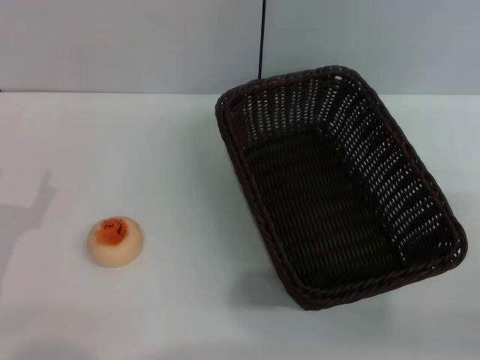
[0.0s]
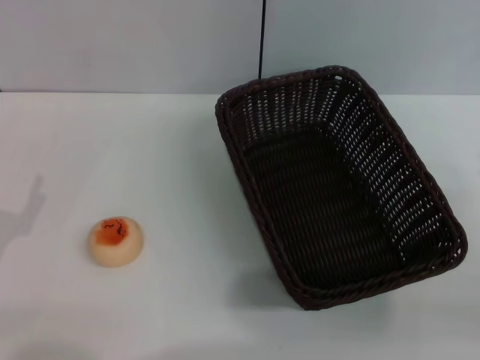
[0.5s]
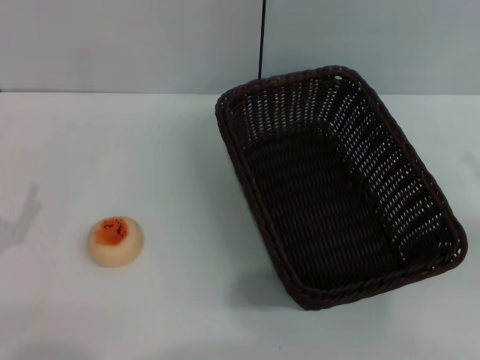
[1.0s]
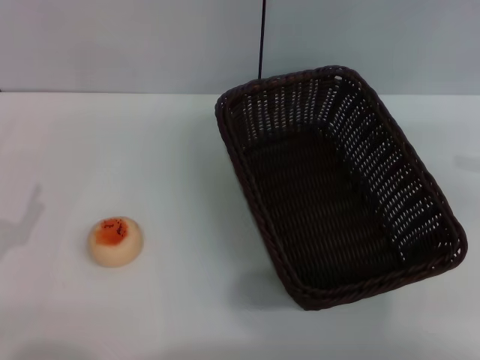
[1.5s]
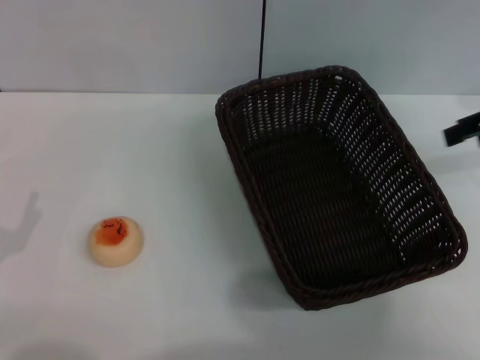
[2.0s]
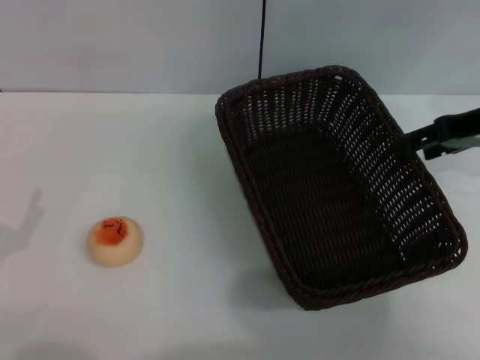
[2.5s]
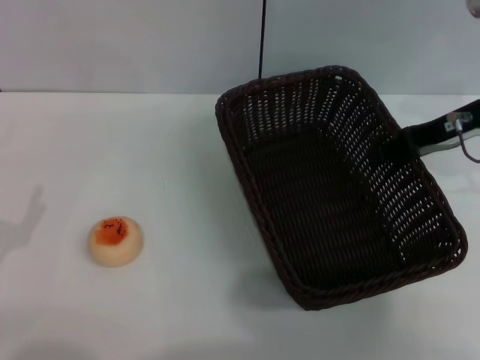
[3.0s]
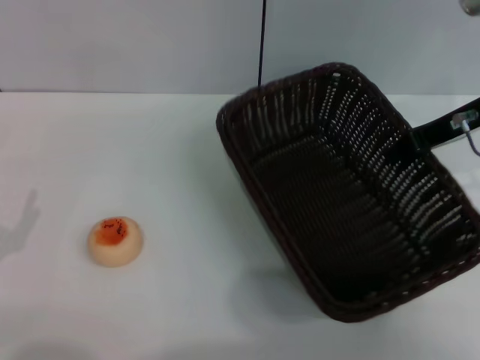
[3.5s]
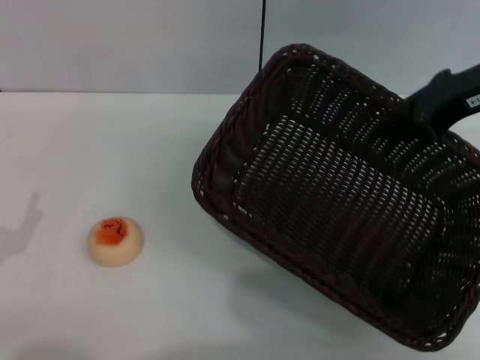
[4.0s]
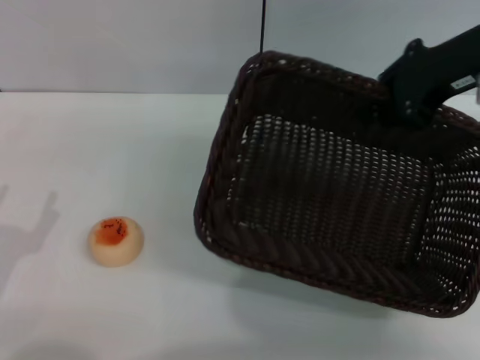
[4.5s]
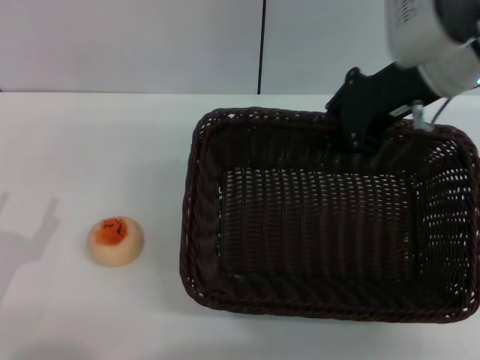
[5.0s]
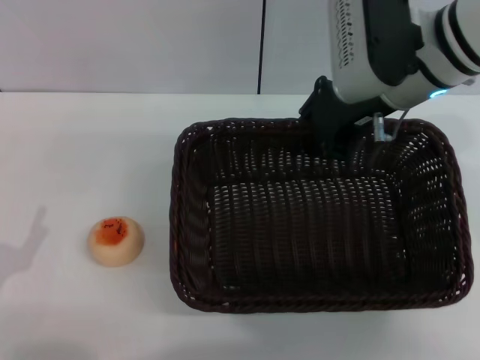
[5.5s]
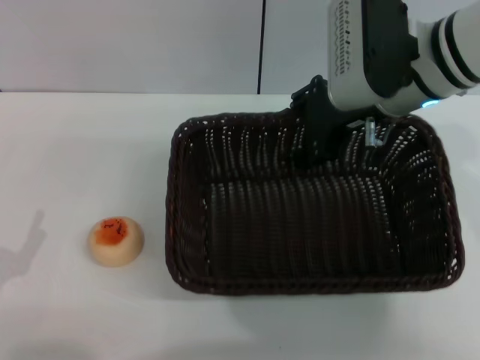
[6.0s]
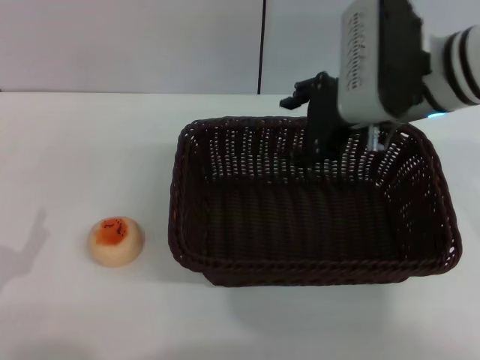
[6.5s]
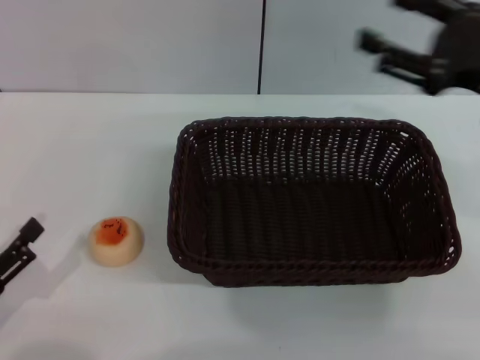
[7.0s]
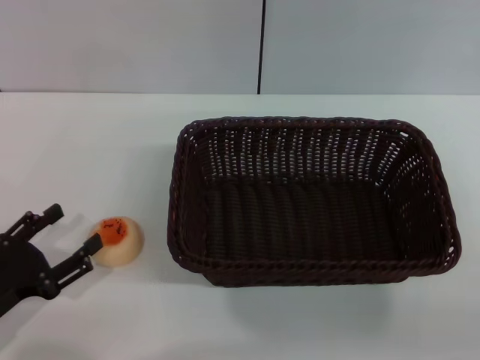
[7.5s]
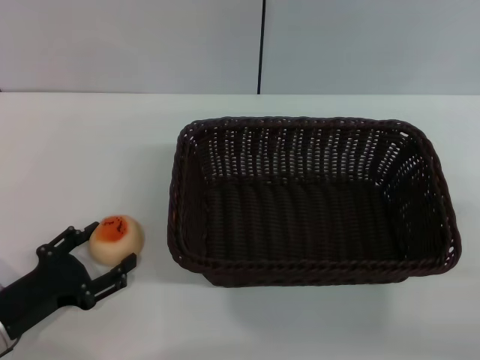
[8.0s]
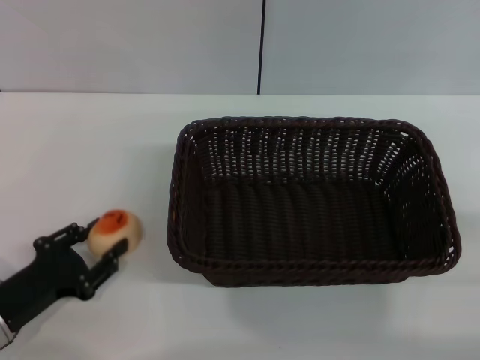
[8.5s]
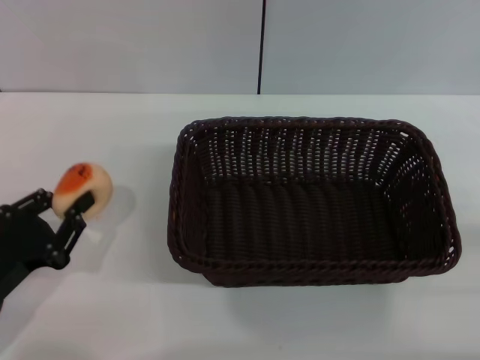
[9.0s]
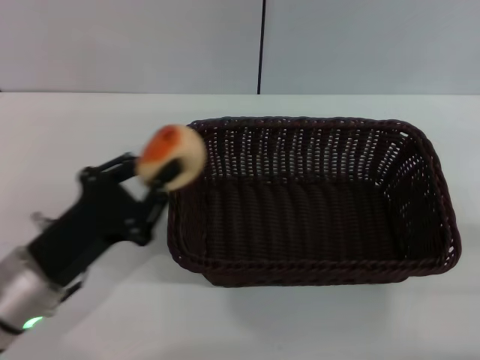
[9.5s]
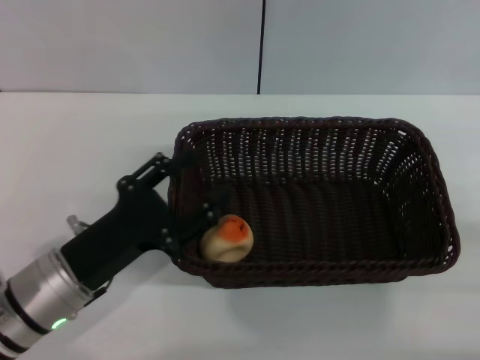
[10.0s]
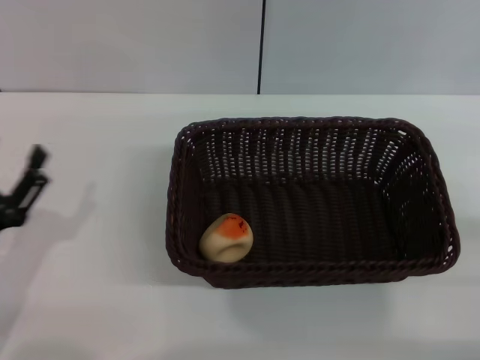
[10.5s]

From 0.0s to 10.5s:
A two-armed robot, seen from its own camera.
Step, from 0.0s to 6.0s: Move the basket to the center of view with the right gripper.
Step, from 6.5s to 9.0s: Pick up the egg yolk pastry with the left gripper.
Step, from 9.5s to 10.0s: Place the egg yolk pastry into the basket with the left gripper.
From 0.0s to 2.0s: The right gripper moves forward and upward, about 25 cm.
From 2.0s to 4.0s: The right gripper shifts about 5 cm to the left, and closes up.
From 4.0s to 6.5s: The right gripper shifts some 10 cm to the left, and opens its fingers.
From 6.5s to 8.5s: The left gripper moves forward, roughly 5 cm, while the right gripper is displaced to the right, backward and downward by roughly 30 cm.
From 8.5s to 10.5s: The left gripper reaches roughly 10 cm to the right, then returns, and closes and opens again.
